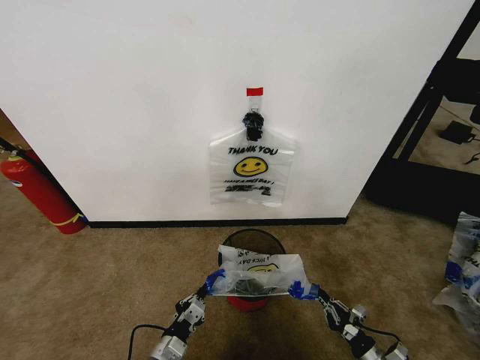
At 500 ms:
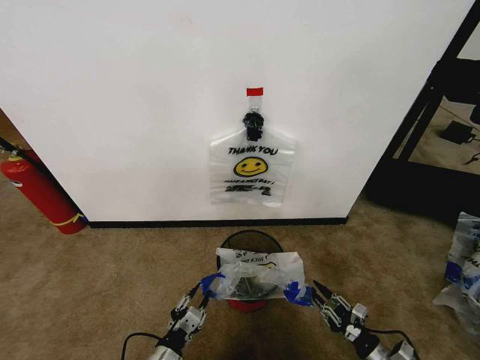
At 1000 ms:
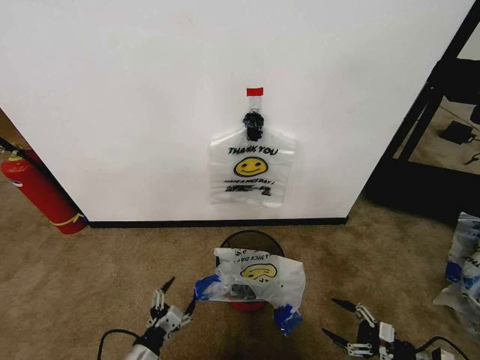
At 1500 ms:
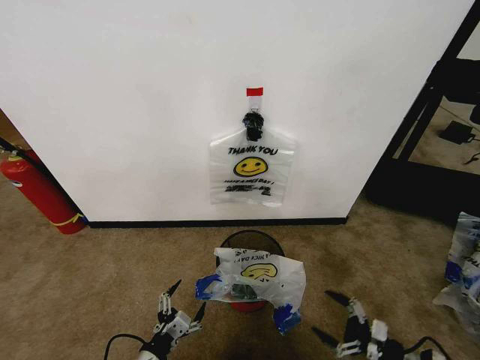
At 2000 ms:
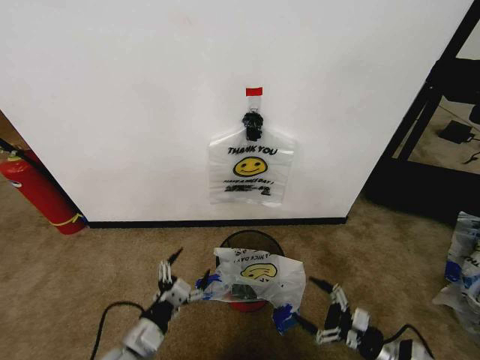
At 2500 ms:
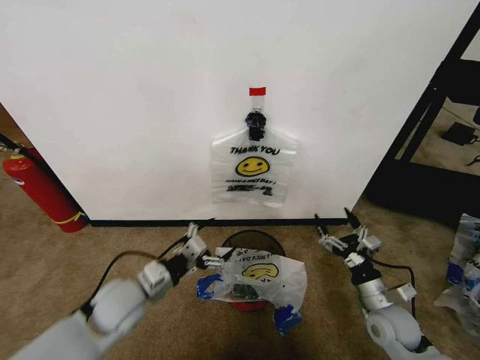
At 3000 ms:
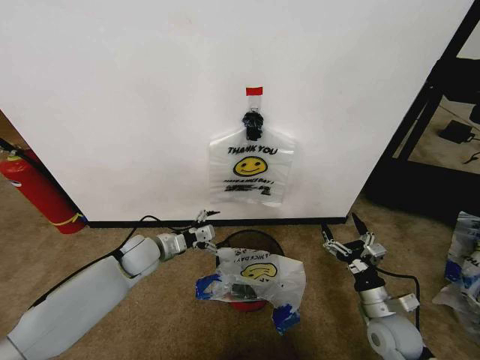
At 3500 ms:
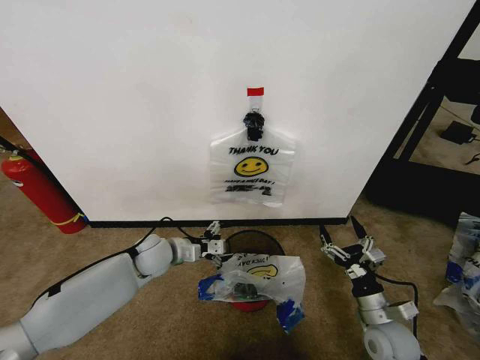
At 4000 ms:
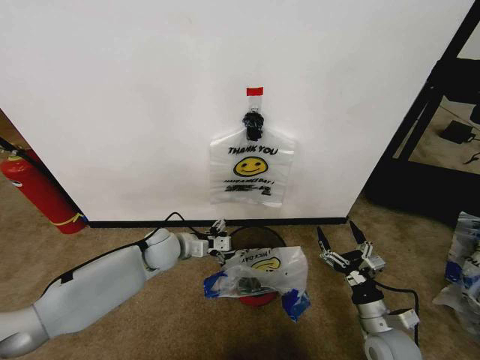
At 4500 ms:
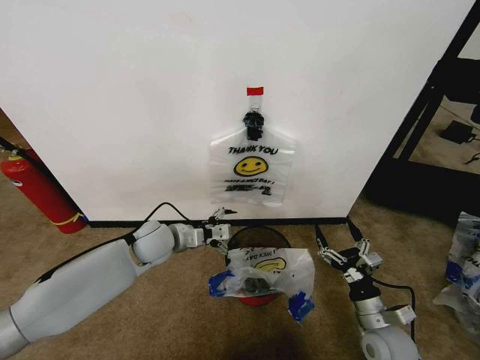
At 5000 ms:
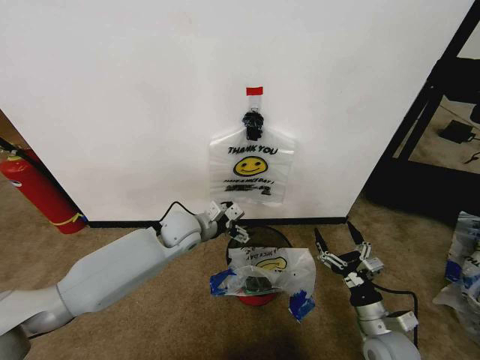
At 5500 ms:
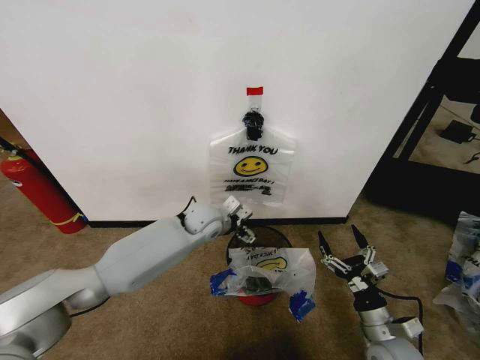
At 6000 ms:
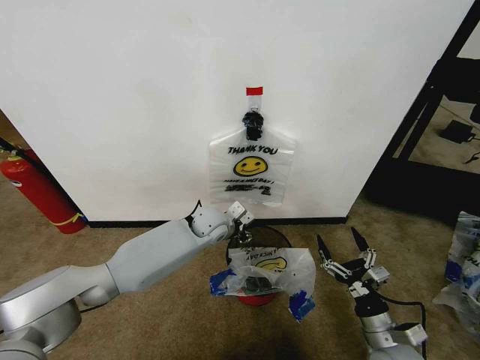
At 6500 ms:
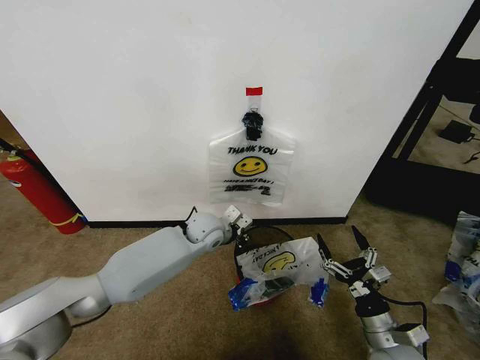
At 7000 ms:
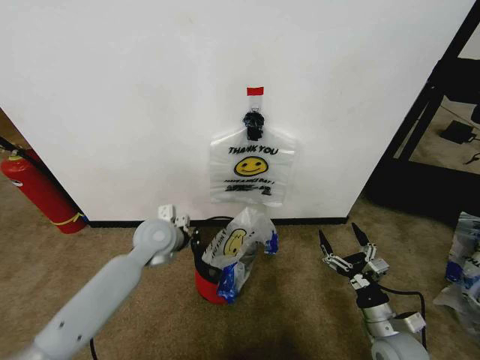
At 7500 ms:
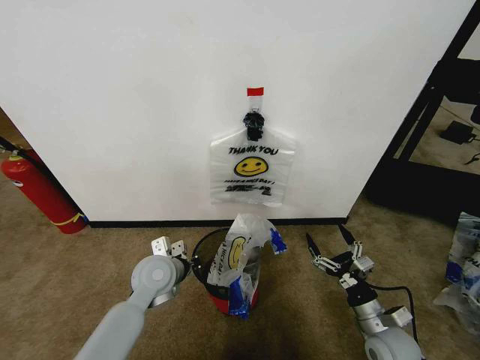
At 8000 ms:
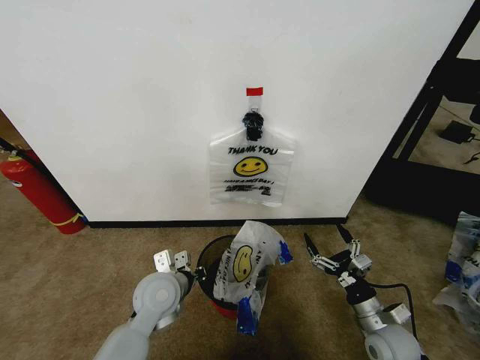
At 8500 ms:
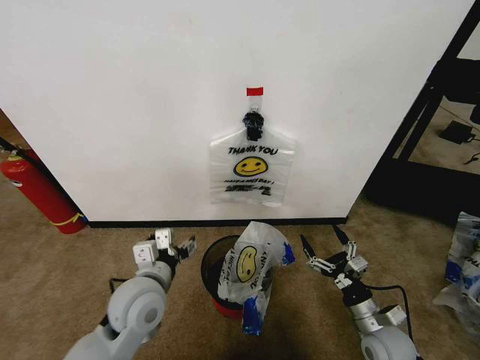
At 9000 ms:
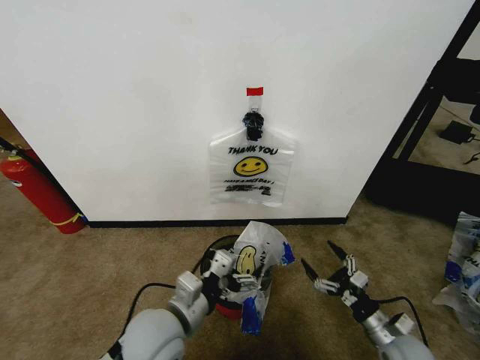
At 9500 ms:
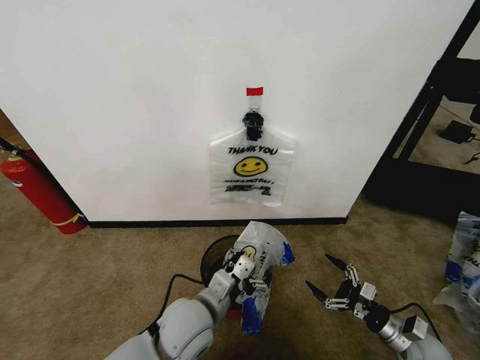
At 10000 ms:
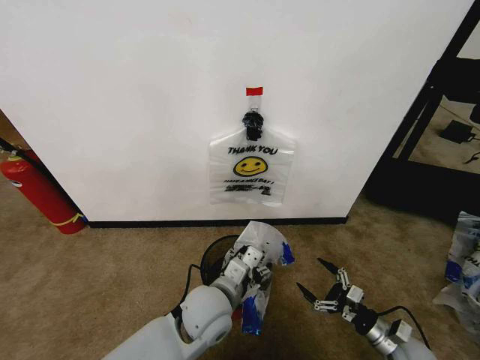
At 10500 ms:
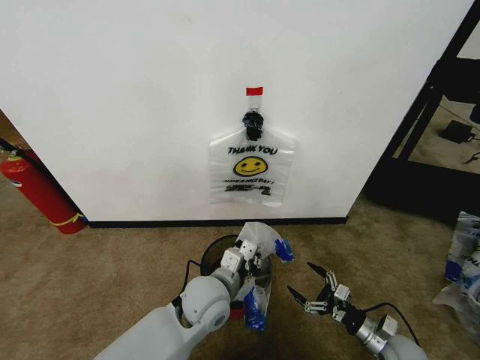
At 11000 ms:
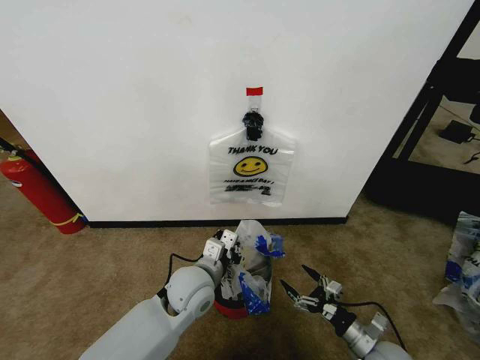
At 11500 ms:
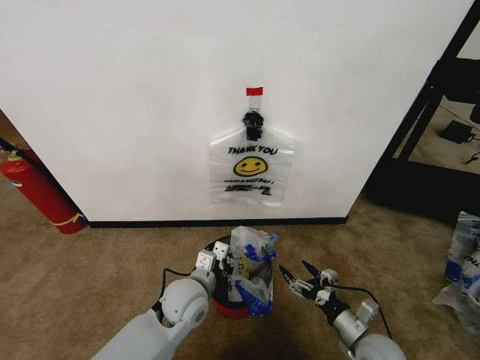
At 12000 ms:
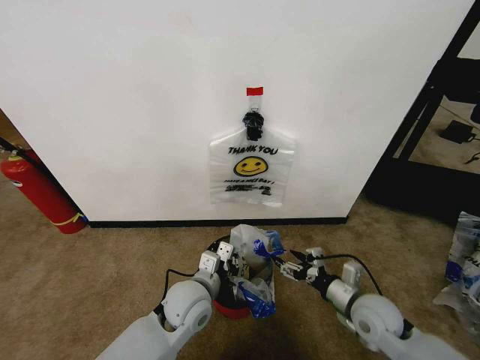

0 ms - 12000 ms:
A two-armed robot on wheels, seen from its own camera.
Task of the whole recording: Pick up the garbage bag from the wall and place it over the trash bin.
0 ms - 2000 ms: Both grippers travel together upward, some 10 cm. The left gripper opens up. The right gripper moves about 10 cm to the right and comes back, and opens.
2000 ms - 4000 ms: The left gripper is displaced forward by approximately 25 cm. Meanwhile the right gripper travels to the left and upward by approximately 10 cm.
4000 ms - 6000 ms: The left gripper is displaced to the right and forward by roughly 15 cm, and closes its fingers.
6000 ms - 8000 ms: The left gripper goes about 20 cm backward and to the left.
8000 ms - 10000 ms: The right gripper goes some 10 cm to the right and downward, while the left gripper shifts about 10 cm to the right, and opens.
10000 ms - 12000 ms: The right gripper shifts about 15 cm upward, to the left and forward; the left gripper shifts by some 5 cm, and closes.

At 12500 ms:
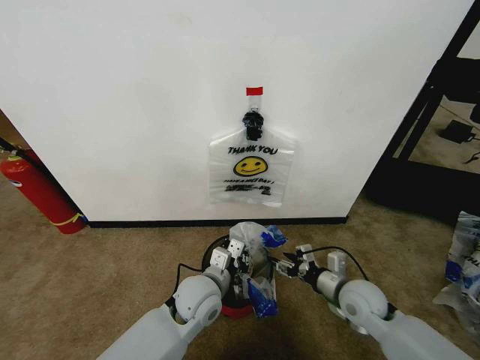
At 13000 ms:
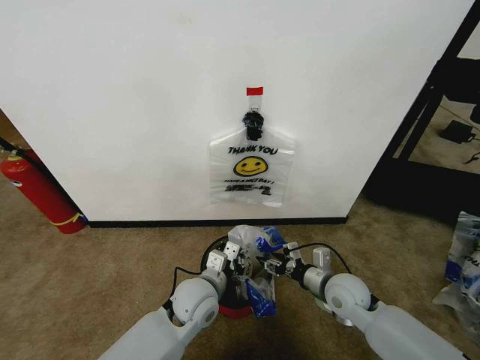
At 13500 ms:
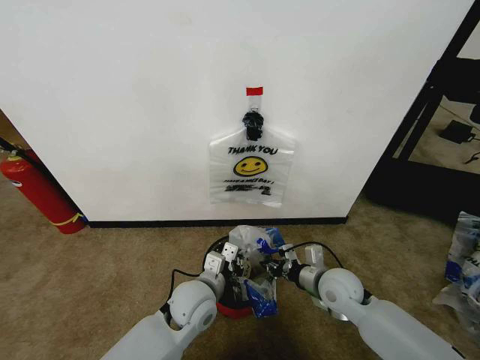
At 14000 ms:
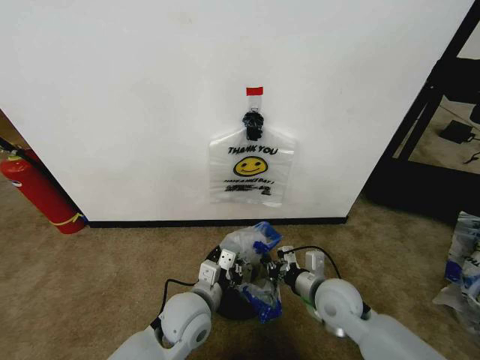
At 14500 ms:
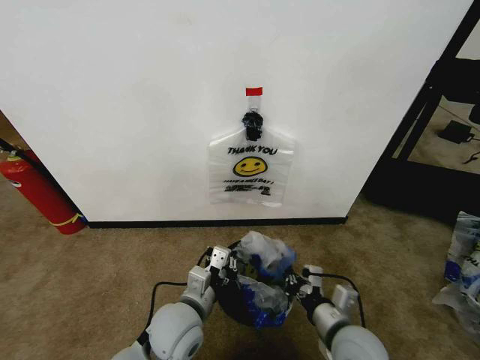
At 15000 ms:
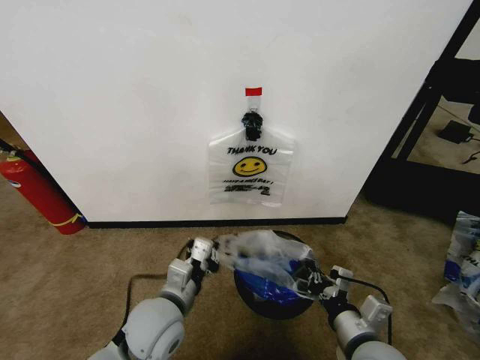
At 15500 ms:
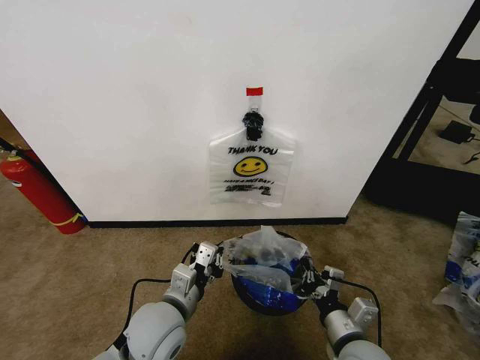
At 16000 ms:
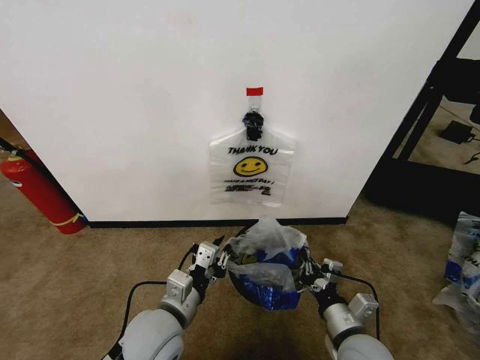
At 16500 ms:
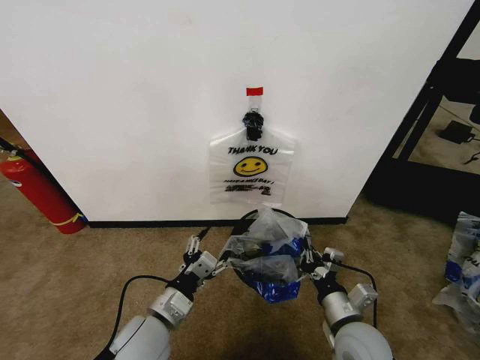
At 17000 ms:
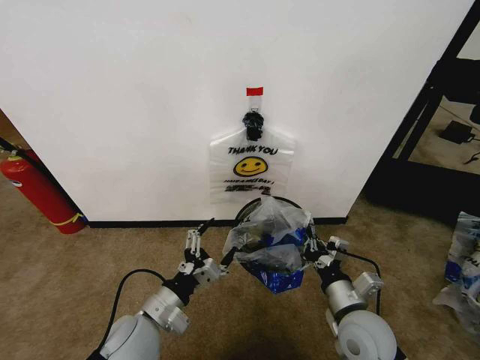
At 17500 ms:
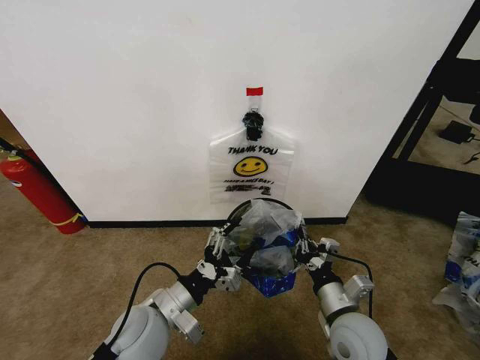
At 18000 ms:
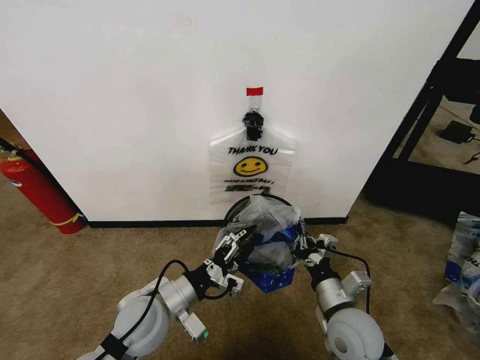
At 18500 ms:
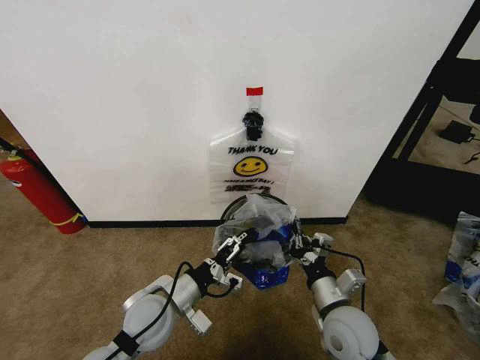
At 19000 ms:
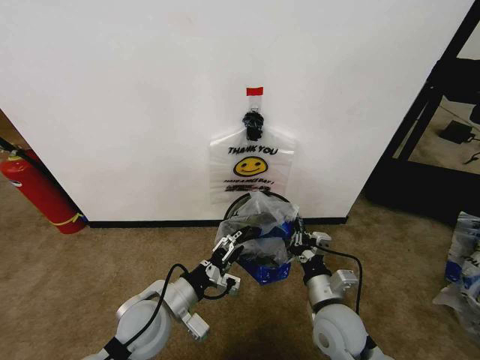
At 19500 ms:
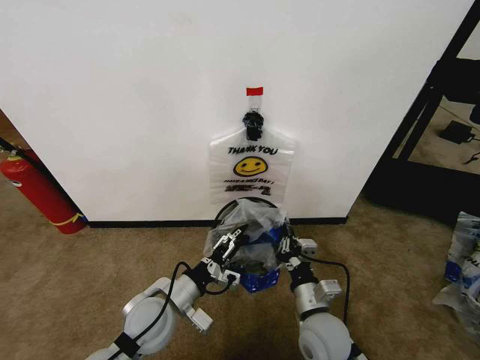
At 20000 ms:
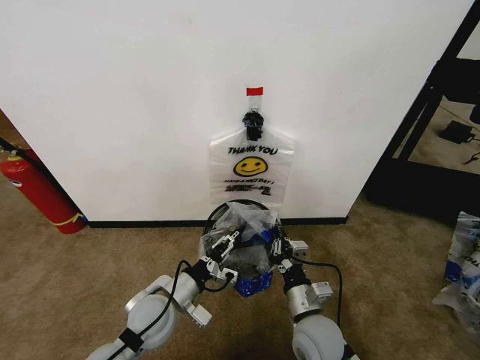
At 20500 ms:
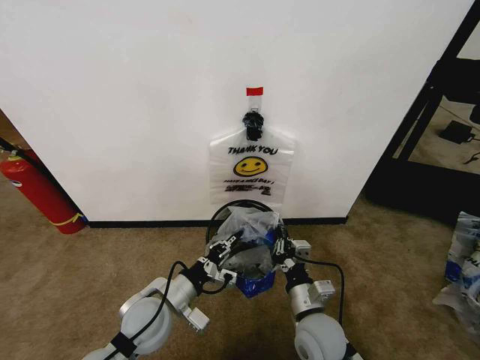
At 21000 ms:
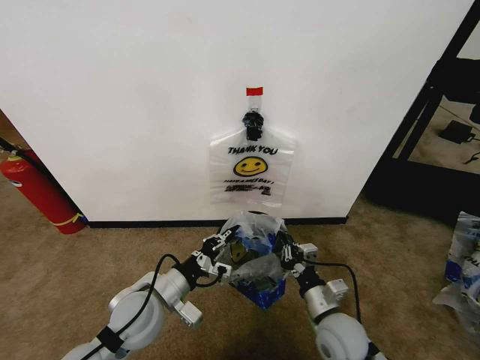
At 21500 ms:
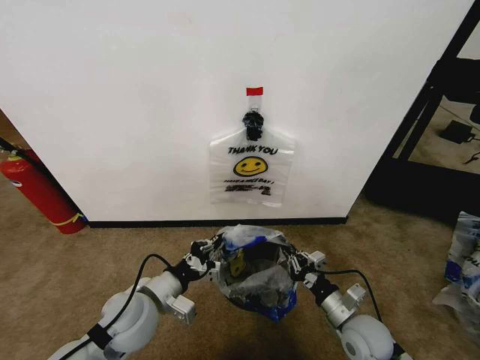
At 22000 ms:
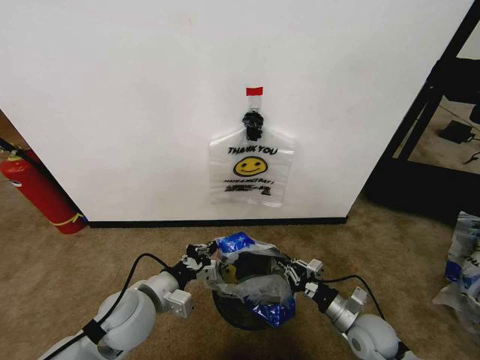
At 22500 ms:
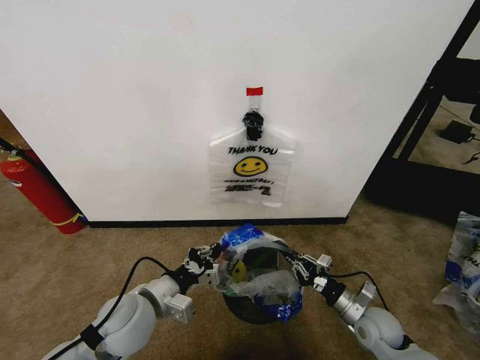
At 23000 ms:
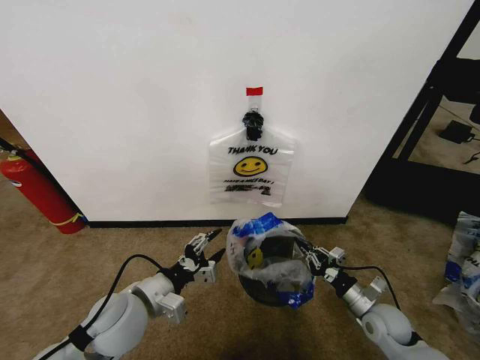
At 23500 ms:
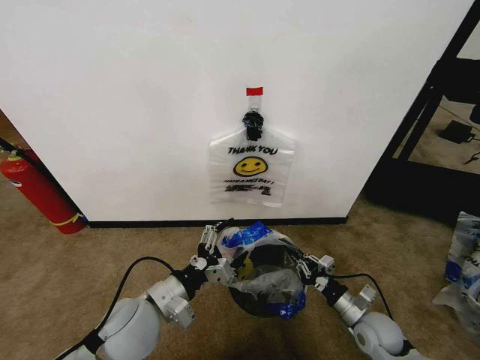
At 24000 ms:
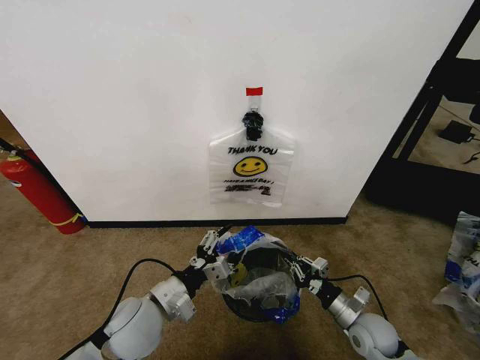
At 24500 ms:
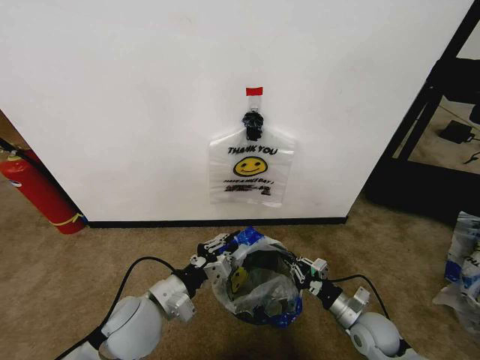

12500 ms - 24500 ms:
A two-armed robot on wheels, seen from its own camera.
Task of the whole recording: Pick up the garbage bag from the wall and place it over the trash bin.
12500 ms - 14500 ms: The left gripper shifts approximately 5 cm backward. The right gripper travels backward and to the left by some 10 cm, and closes its fingers.
14500 ms - 16500 ms: The left gripper moves to the left, approximately 5 cm, and opens.
18500 ms - 20500 ms: The right gripper ends up roughly 5 cm from where it was, while the left gripper closes.
20500 ms - 22500 ms: The right gripper is displaced to the right and downward by roughly 20 cm.
22500 ms - 24500 ms: The left gripper opens, then closes again.

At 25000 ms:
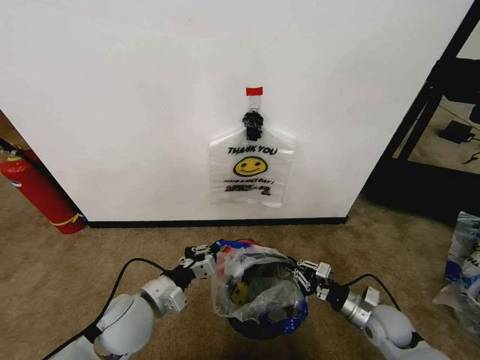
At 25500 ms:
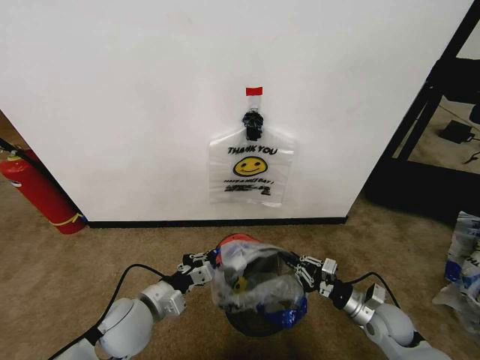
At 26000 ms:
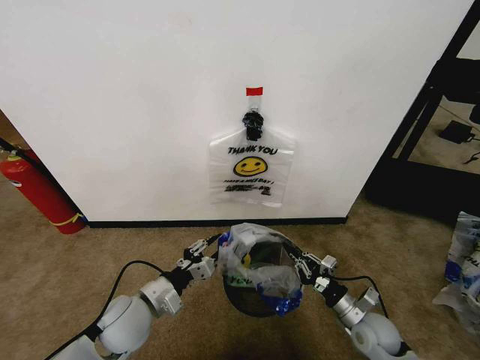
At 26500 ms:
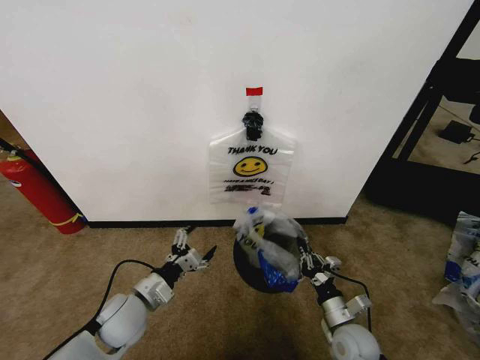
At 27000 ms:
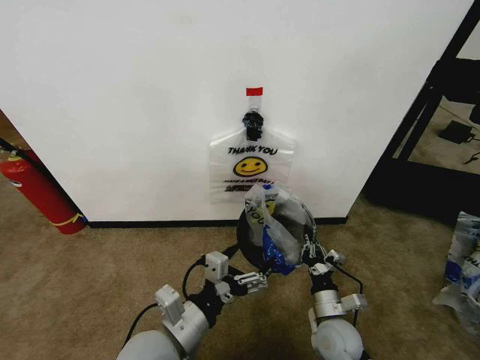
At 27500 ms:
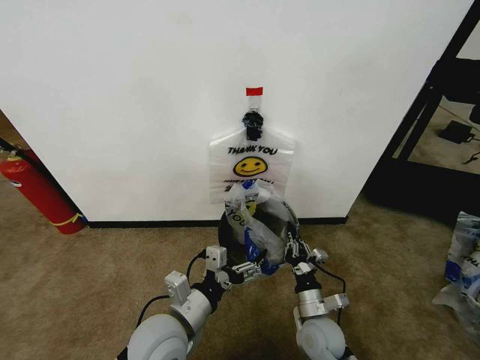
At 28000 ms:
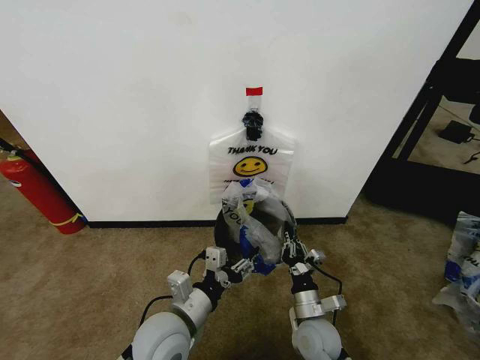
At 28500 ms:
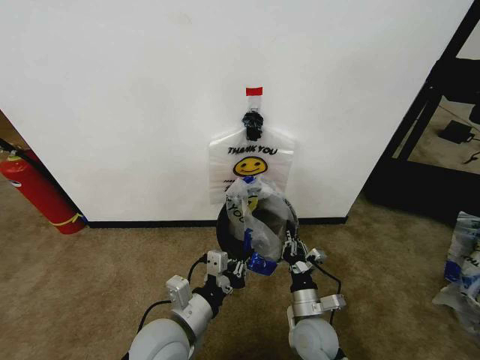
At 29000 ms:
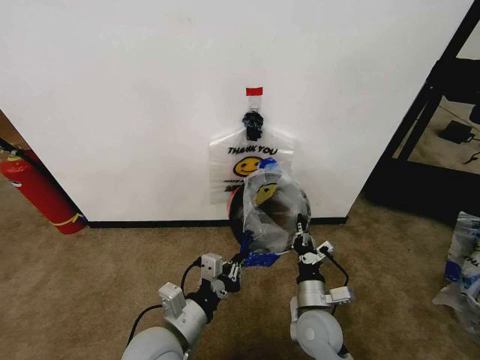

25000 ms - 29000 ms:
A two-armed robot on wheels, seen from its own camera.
Task of the whole recording: Pick up the garbage bag from the wall and place it over the trash bin.
25000 ms - 27000 ms: The left gripper shifts some 10 cm to the right and backward, and opens up, while the right gripper shifts approximately 10 cm to the left.
27000 ms - 29000 ms: The left gripper closes up; the right gripper shifts roughly 5 cm to the left.
